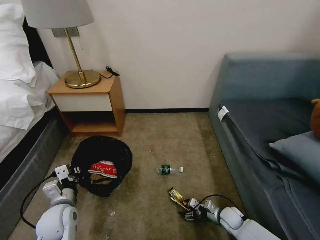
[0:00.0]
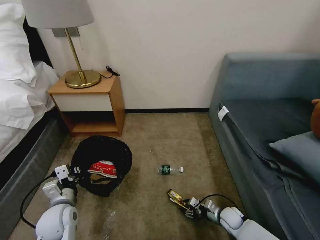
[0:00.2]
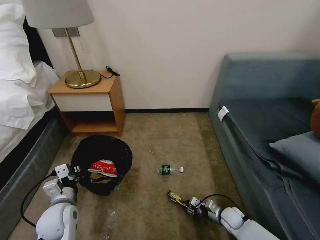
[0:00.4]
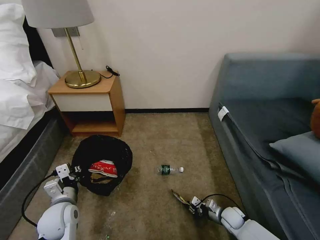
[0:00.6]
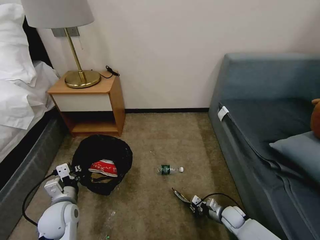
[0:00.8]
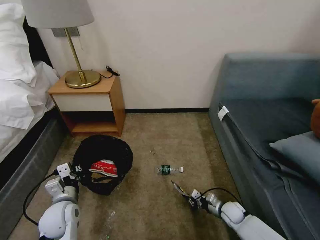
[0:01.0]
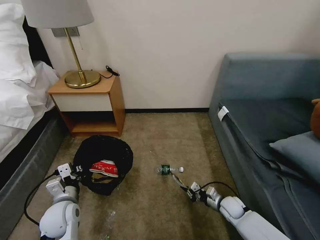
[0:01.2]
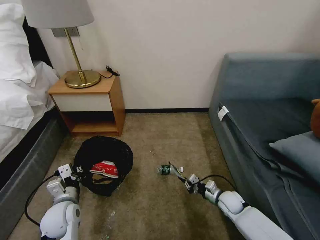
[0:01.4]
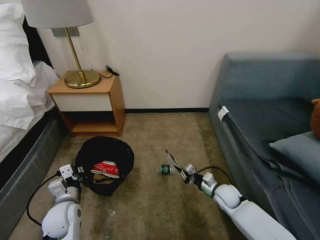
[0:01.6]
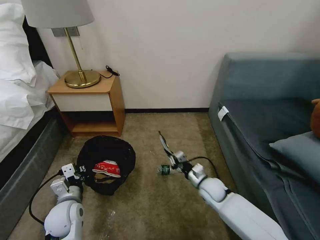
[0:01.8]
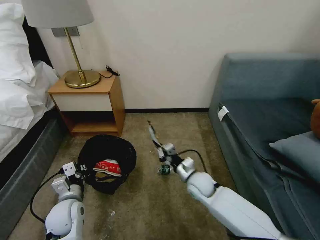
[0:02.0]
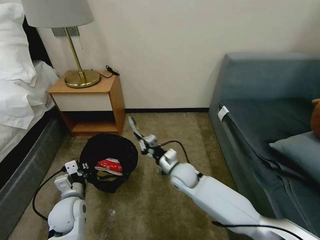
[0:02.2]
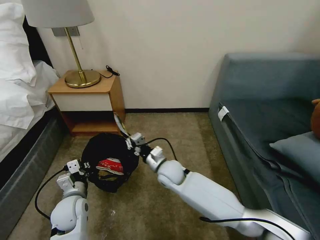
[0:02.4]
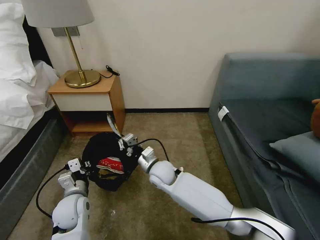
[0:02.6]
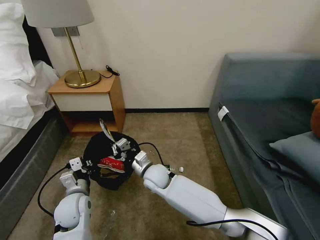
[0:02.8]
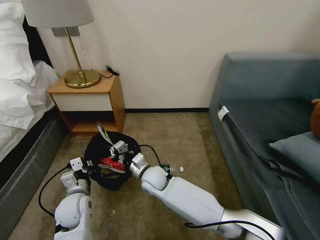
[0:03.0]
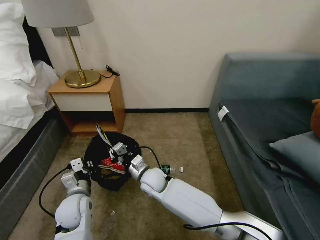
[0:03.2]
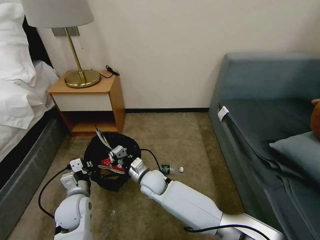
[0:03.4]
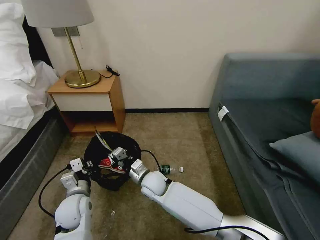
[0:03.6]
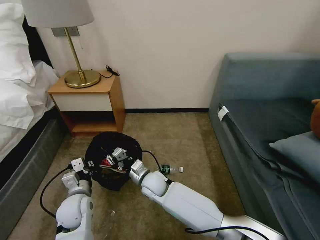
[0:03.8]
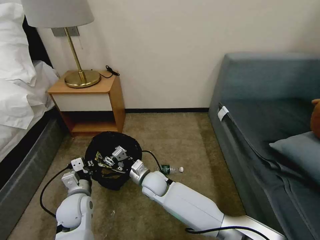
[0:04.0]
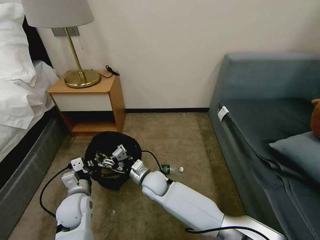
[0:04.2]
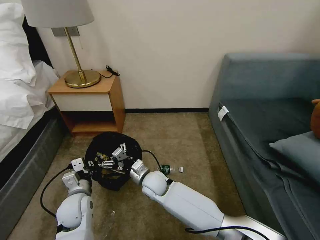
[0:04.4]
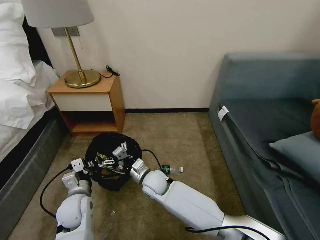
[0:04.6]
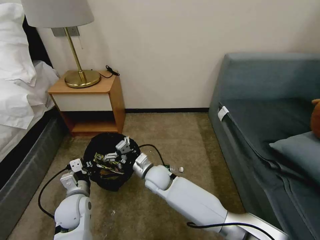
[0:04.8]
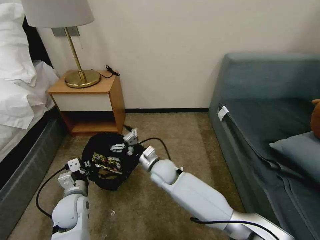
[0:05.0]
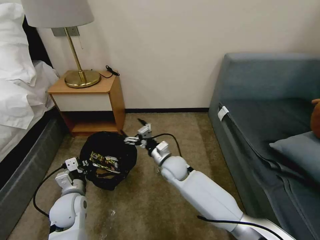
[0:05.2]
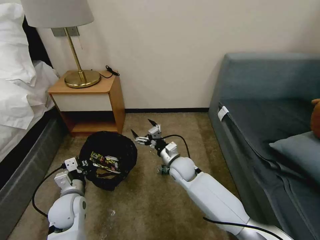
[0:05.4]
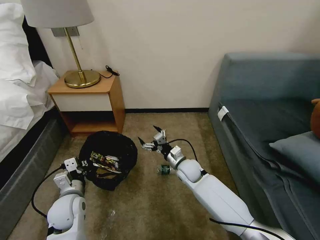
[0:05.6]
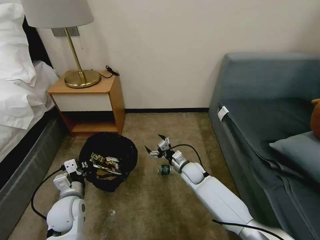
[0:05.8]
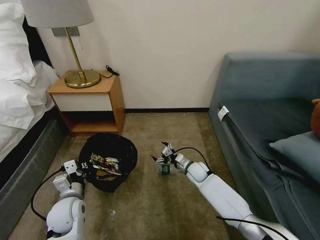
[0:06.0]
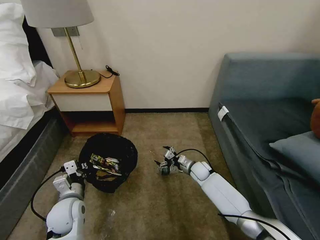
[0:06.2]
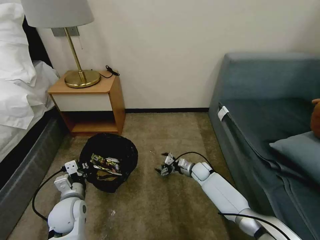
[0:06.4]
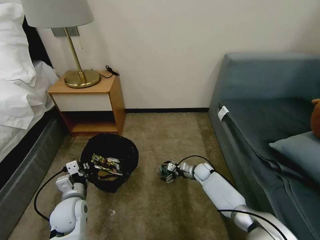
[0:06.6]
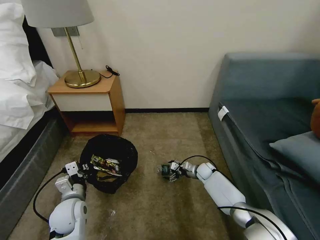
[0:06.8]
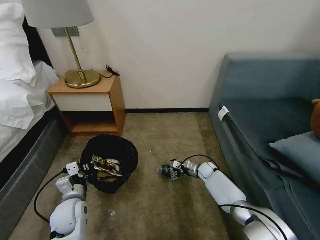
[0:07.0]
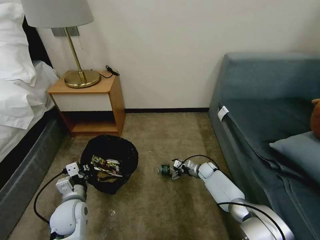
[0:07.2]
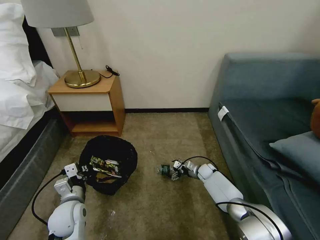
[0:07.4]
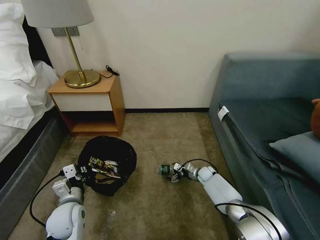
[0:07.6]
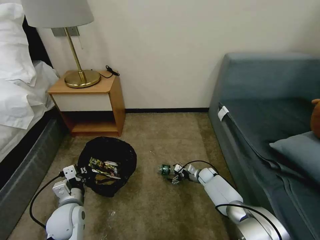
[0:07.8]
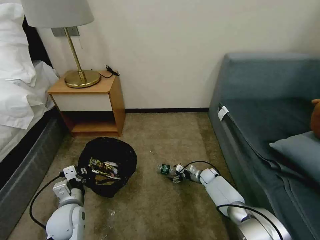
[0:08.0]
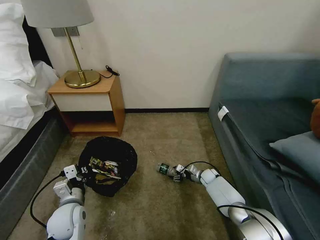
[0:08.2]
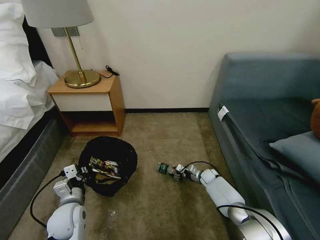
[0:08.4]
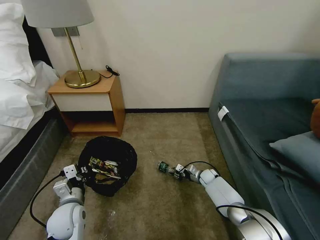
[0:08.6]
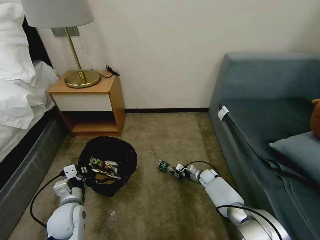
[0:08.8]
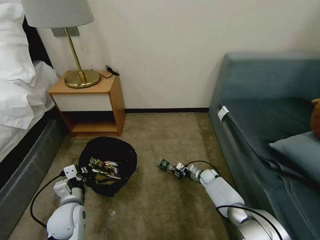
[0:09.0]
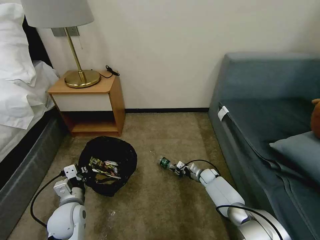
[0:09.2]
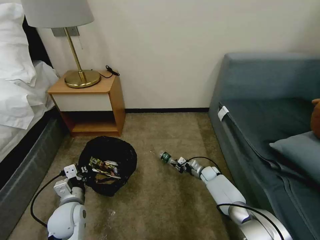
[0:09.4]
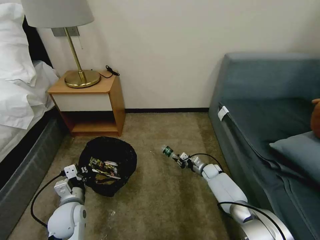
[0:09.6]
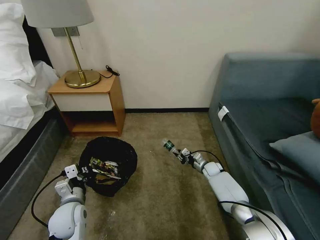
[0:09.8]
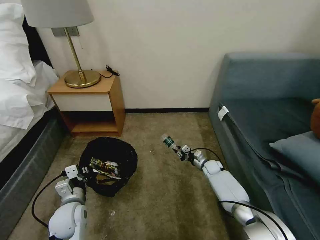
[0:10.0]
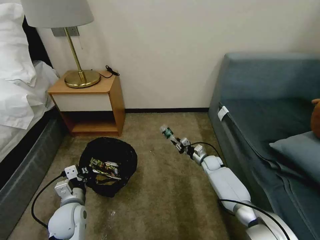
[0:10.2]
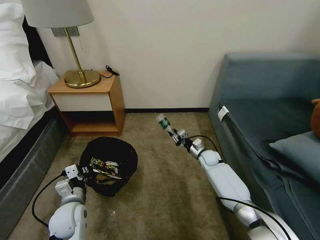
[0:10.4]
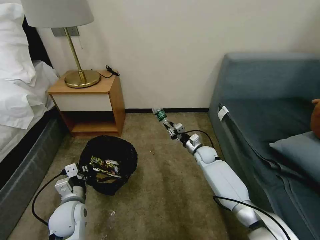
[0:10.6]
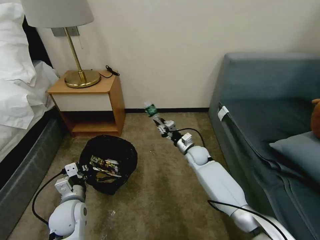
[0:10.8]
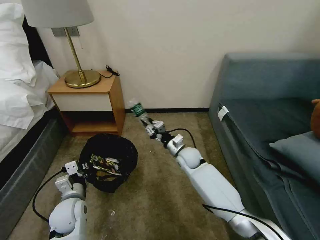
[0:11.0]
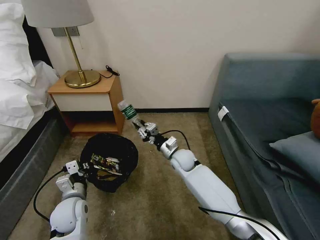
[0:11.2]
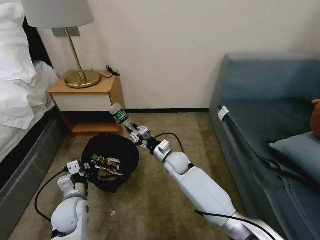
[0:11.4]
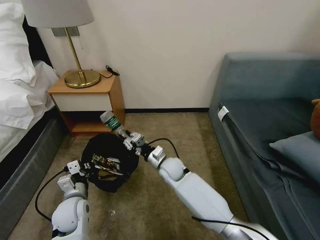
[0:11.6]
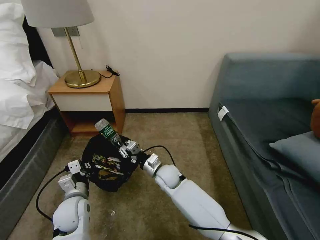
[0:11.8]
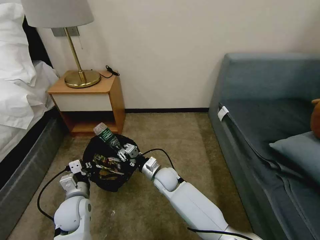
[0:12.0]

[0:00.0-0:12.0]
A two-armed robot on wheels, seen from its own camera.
Task of the whole recording: Pick up the trash bin, then pick up the garbage on the floor and place it into the trash bin.
0:00.0 to 0:01.6: The right gripper heads upward and forward, covering some 10 cm, and closes.
0:01.6 to 0:03.0: The right gripper is displaced to the left by approximately 30 cm.
0:03.0 to 0:04.4: The right gripper opens up.
0:04.4 to 0:06.0: The right gripper heads to the right and forward, covering some 20 cm.
0:06.0 to 0:07.6: The right gripper heads downward and to the right, covering about 10 cm.
0:07.6 to 0:09.0: The right gripper closes.
0:09.0 to 0:10.4: The right gripper goes some 10 cm upward.
0:10.4 to 0:12.0: The right gripper goes approximately 25 cm to the left and backward.

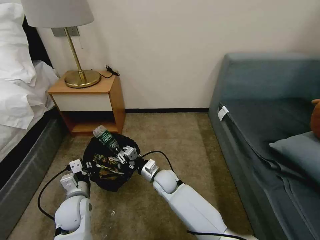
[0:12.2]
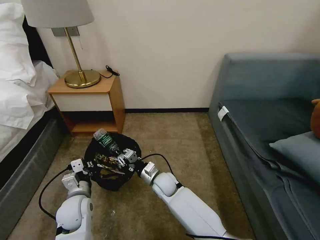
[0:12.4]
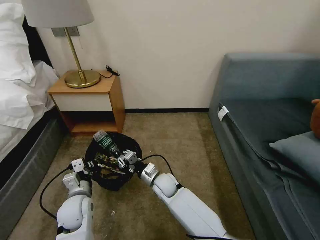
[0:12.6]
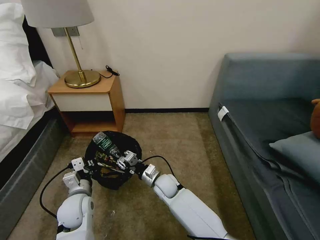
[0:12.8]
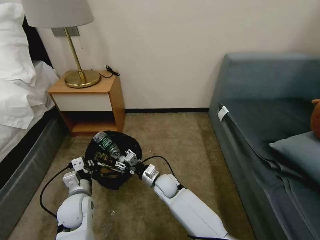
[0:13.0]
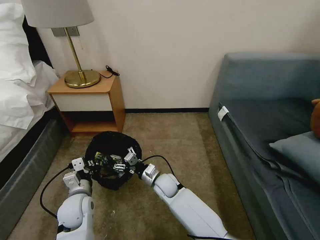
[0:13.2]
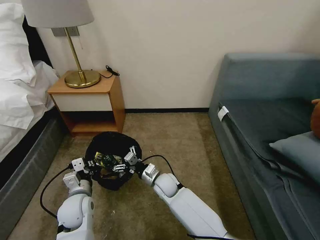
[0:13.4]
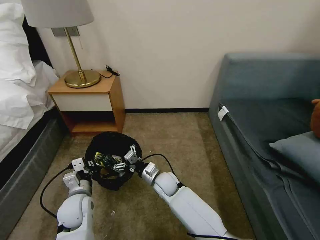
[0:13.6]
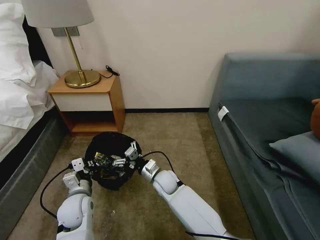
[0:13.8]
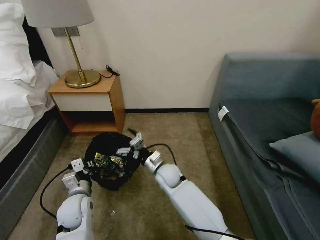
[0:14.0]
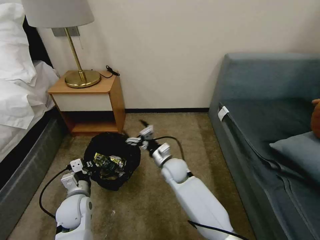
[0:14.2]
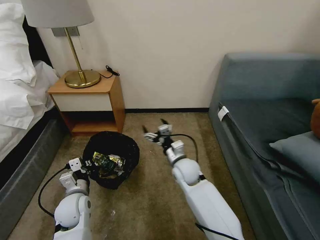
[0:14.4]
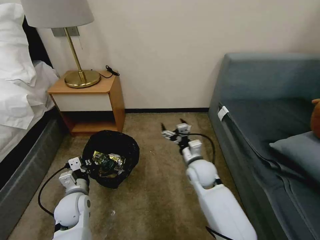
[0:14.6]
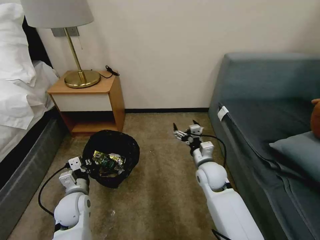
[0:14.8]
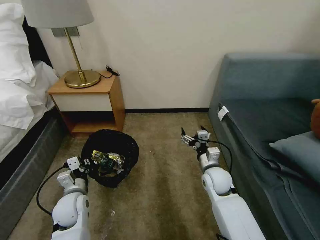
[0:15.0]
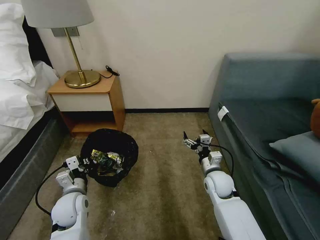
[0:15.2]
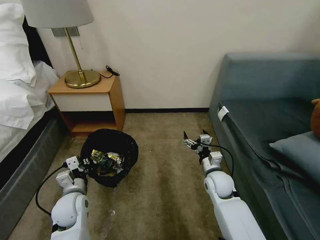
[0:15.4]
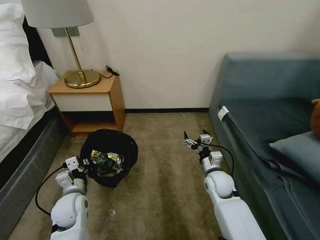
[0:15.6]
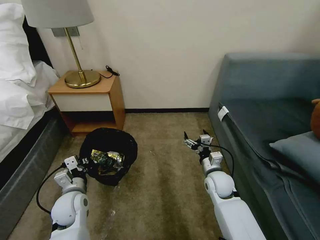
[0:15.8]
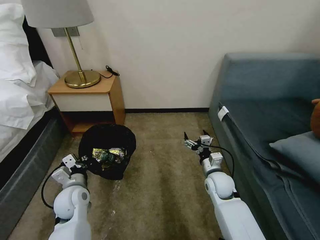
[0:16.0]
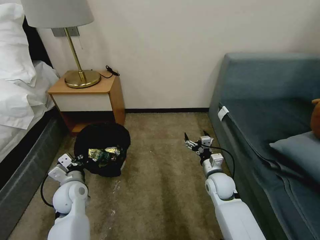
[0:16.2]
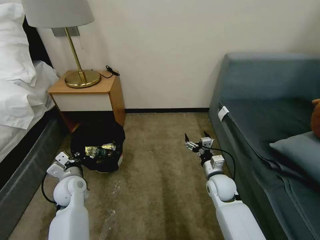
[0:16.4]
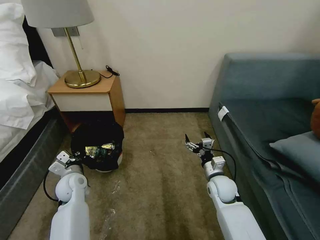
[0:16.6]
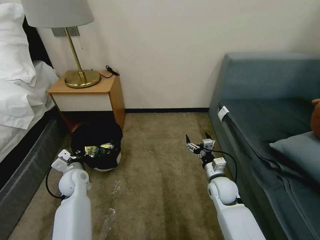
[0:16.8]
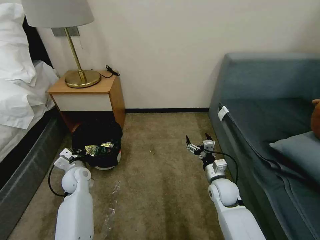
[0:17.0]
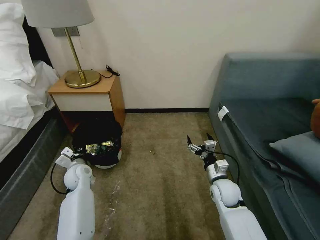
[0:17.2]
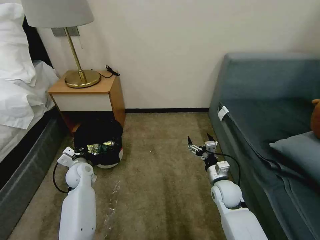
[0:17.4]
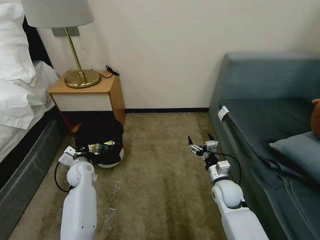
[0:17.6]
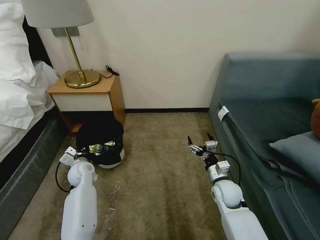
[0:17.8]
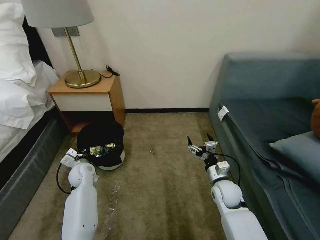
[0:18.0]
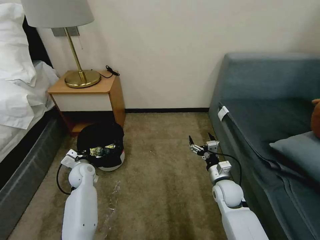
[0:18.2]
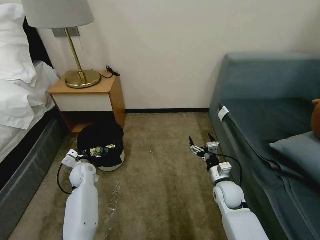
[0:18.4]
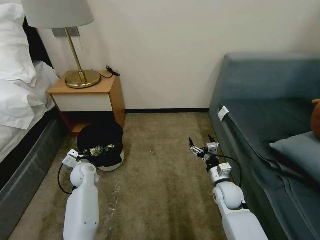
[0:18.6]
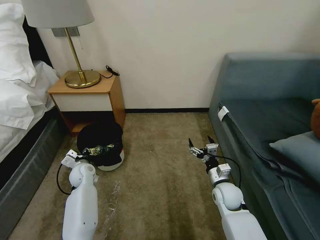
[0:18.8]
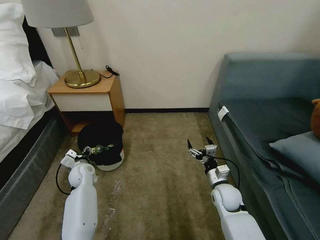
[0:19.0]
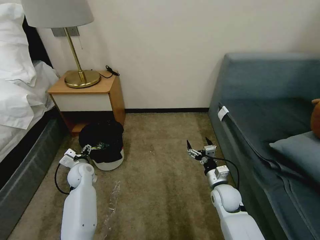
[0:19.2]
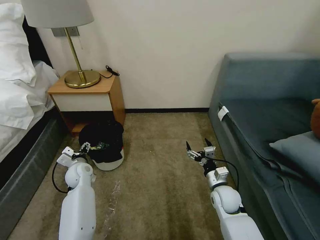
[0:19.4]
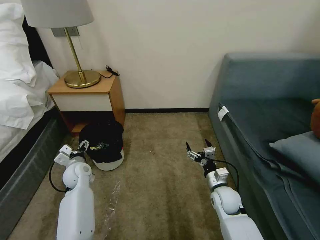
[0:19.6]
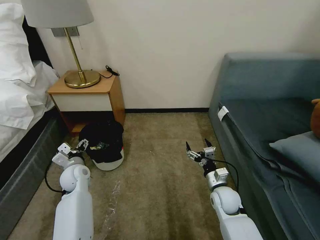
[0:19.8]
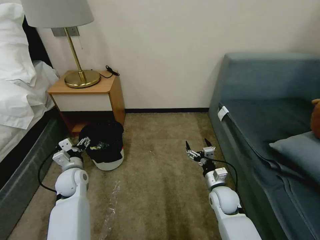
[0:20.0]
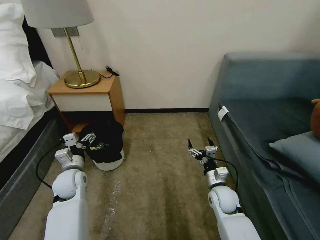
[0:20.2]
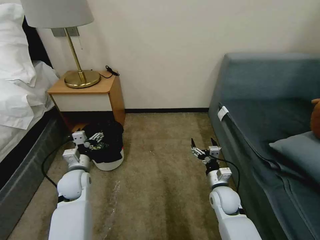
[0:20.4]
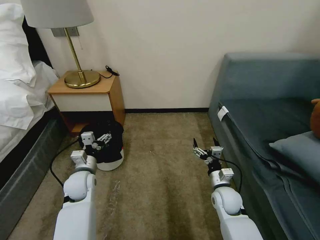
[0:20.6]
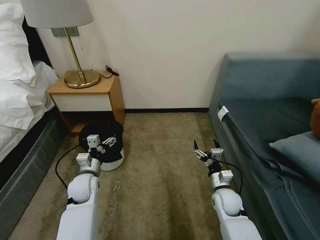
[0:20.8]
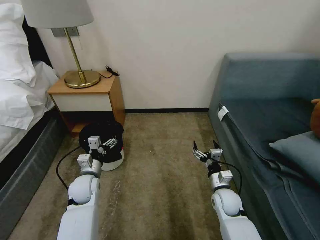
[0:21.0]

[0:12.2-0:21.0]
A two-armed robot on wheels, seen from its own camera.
Task of the whole recording: Pick up the trash bin, then pick up the garbage on the floor and place it into the trash bin.
0:12.2 to 0:13.6: The right gripper opens up.
0:13.6 to 0:15.2: The right gripper moves to the right, roughly 20 cm.
0:15.2 to 0:16.6: The left gripper travels forward by some 5 cm.
0:16.6 to 0:18.0: The left gripper goes approximately 5 cm forward.
0:18.0 to 0:19.6: The left gripper opens its fingers.
0:19.6 to 0:21.0: The left gripper heads backward, covering approximately 5 cm.

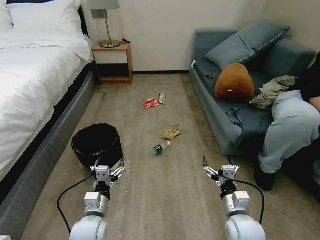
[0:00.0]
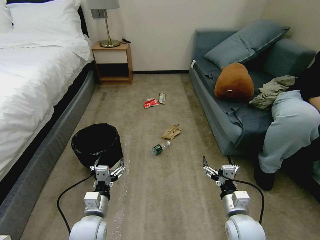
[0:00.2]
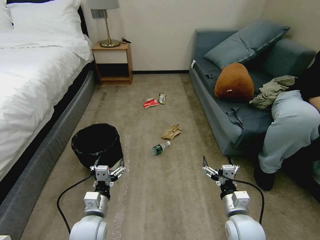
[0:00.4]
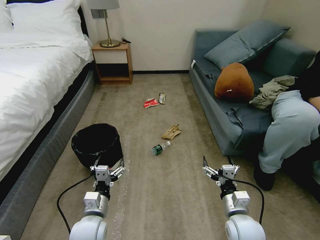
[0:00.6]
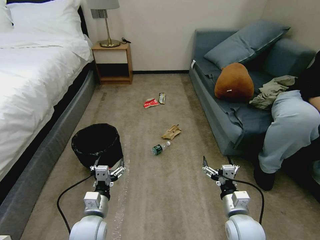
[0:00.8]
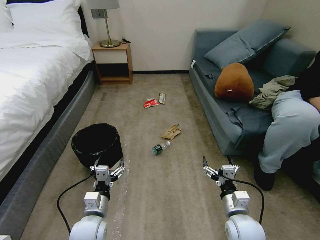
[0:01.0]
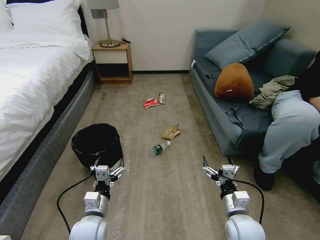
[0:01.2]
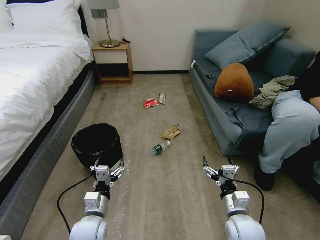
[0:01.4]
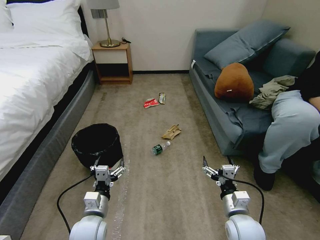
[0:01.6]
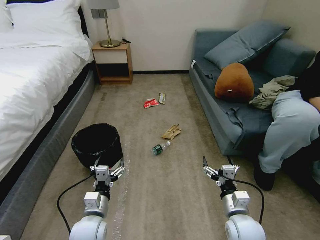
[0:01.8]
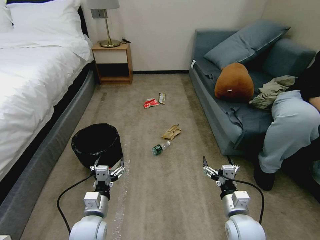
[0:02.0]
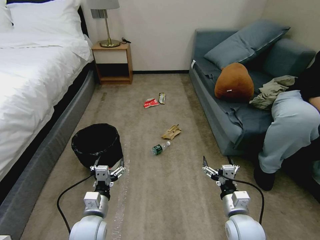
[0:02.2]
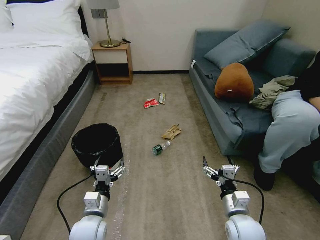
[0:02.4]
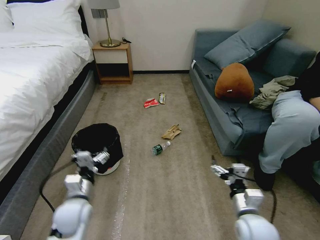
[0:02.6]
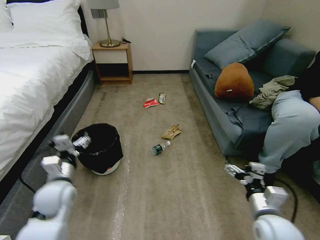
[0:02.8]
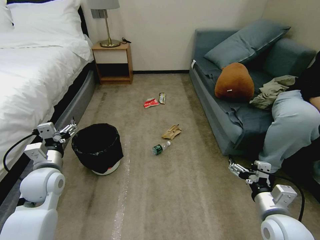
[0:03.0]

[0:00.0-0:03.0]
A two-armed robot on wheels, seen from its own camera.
Task of the whole recording: Pick up the trash bin, then pick up the garbage on the floor and place it into the trash bin.
0:01.6 to 0:03.0: The right gripper is displaced upward and to the right by roughly 10 cm, while the left gripper moves to the left, upward and forward, some 20 cm.
